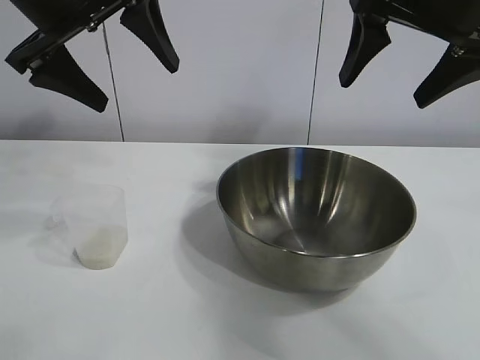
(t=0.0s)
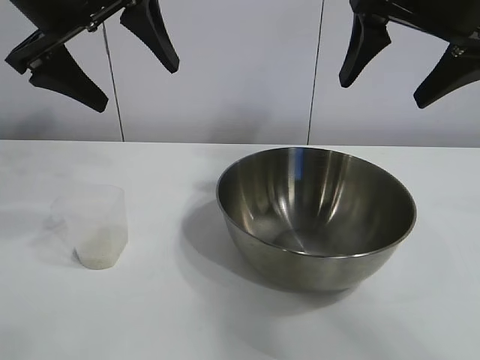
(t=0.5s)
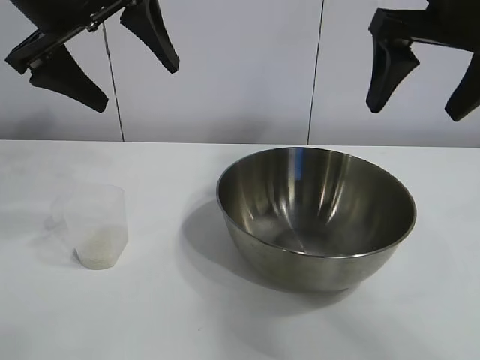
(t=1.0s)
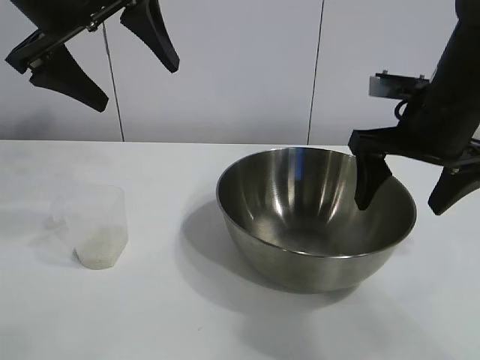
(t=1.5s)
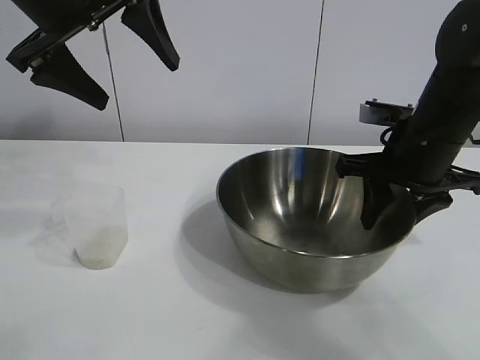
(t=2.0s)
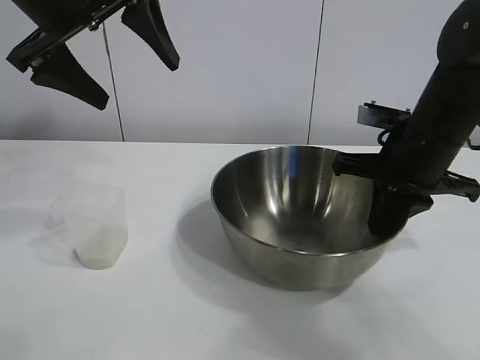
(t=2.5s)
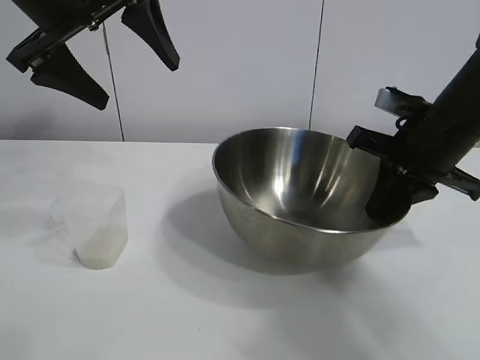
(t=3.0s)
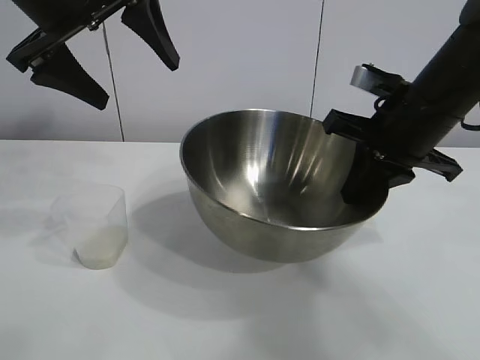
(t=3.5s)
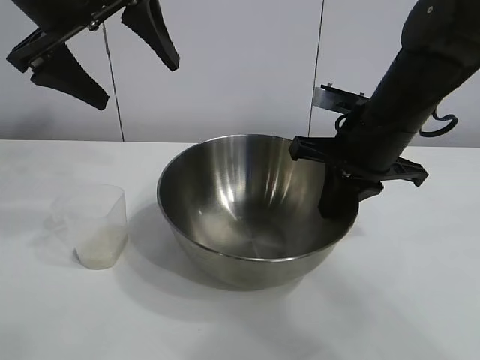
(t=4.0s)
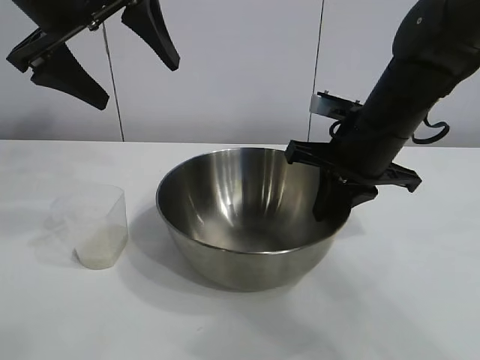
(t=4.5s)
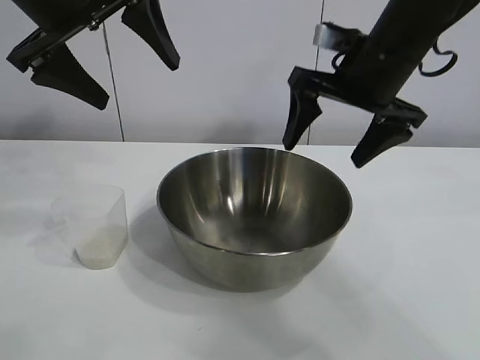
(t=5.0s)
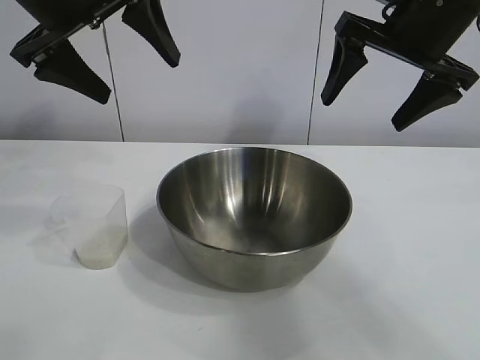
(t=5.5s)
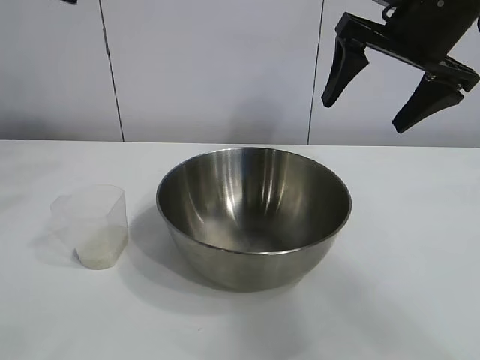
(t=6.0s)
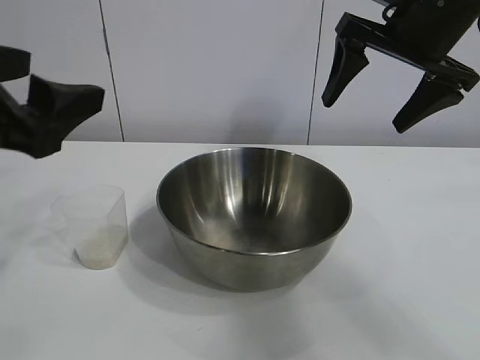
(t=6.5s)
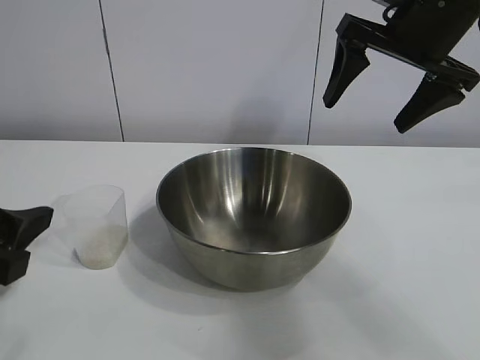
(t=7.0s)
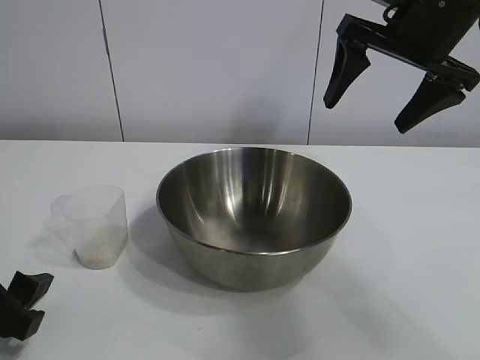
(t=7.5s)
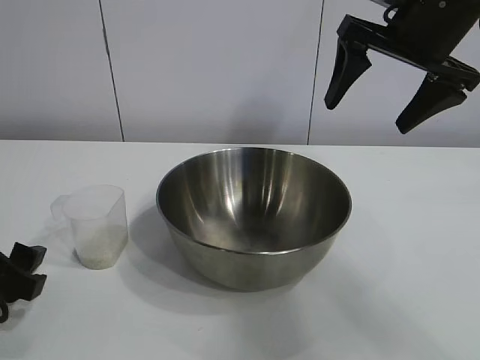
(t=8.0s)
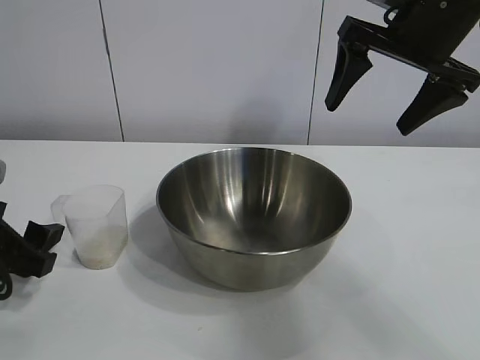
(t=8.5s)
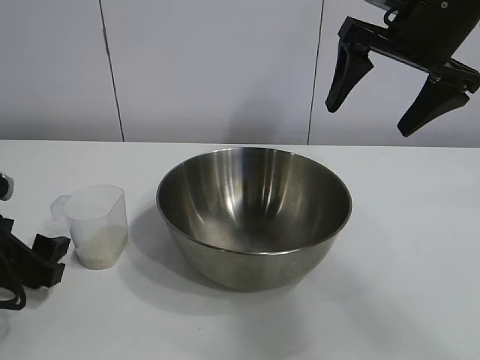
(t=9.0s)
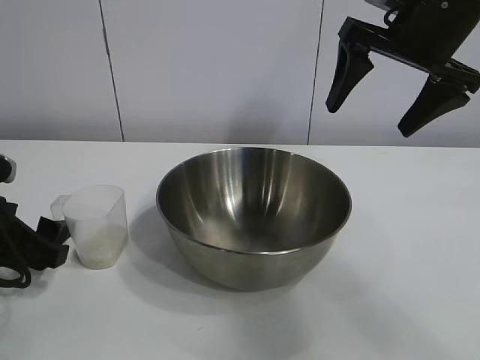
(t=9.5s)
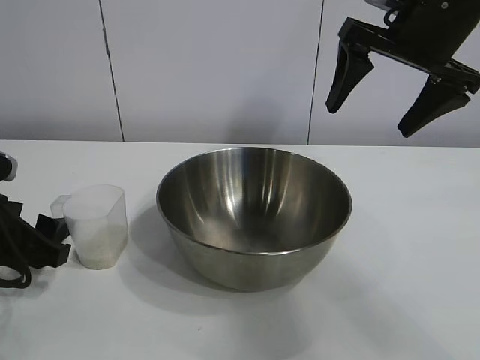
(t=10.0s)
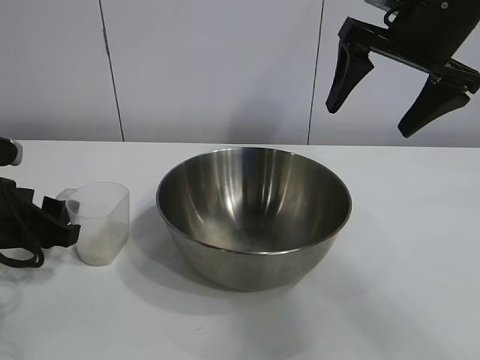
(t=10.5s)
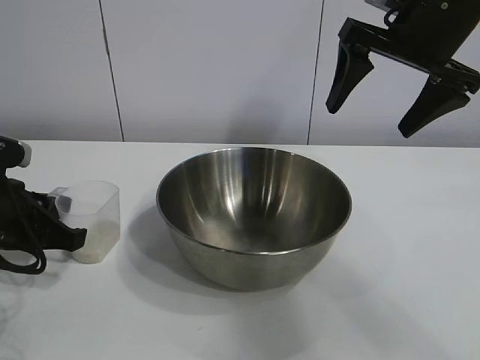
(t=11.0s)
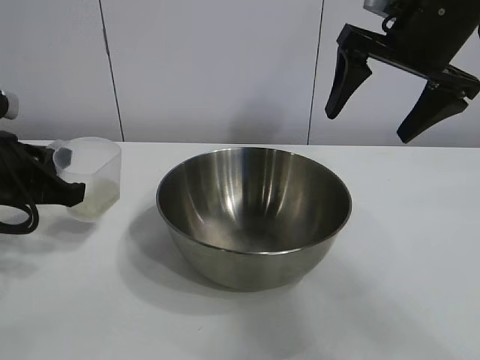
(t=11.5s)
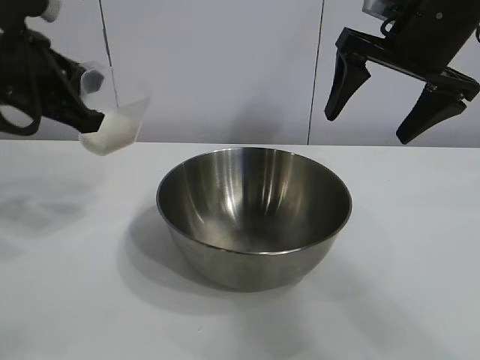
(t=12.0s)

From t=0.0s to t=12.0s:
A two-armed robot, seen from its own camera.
Task of the whole recording: the right gripper grasp the rice container and place it in the center of the table, the left gripper grasp the rice scoop and pour the rice into the rice container.
Step, from t=1.0s to t=4.5s: Move the bowl in the center of view with right gripper.
Step, from t=5.0s to t=11.0s: Grasp the cup with rice in it with left gripper.

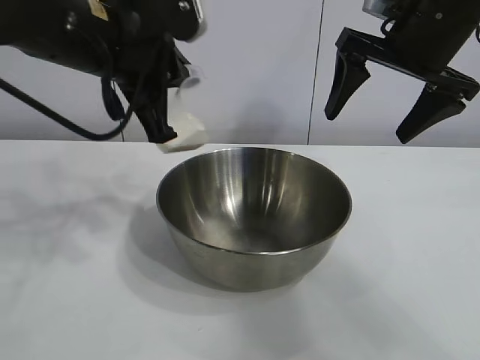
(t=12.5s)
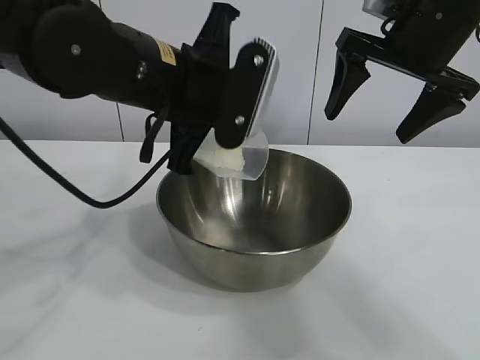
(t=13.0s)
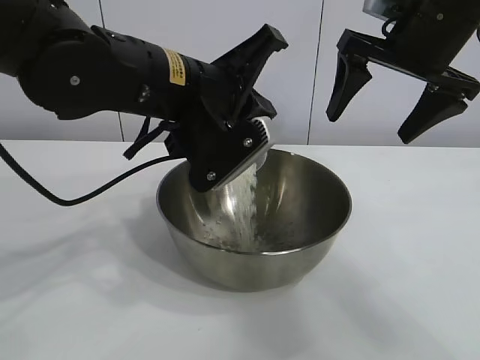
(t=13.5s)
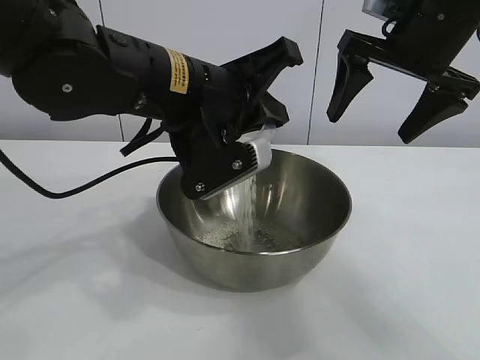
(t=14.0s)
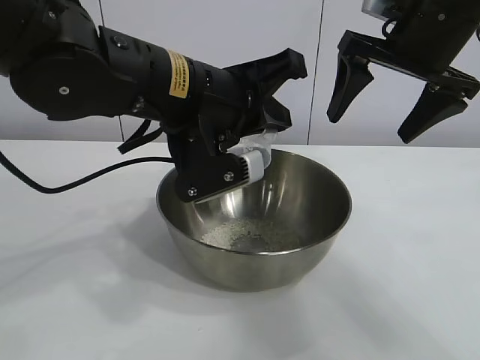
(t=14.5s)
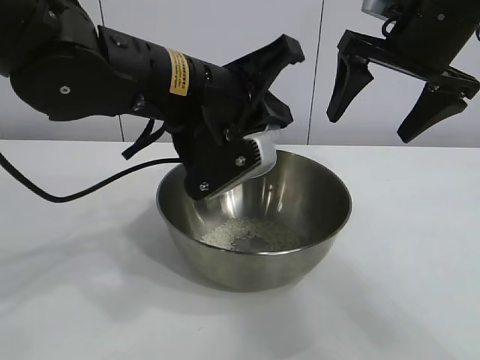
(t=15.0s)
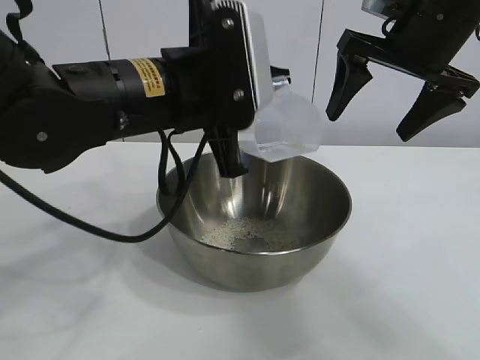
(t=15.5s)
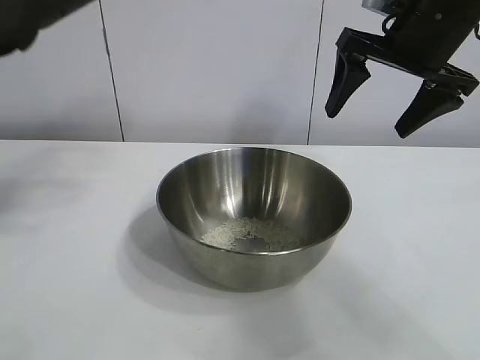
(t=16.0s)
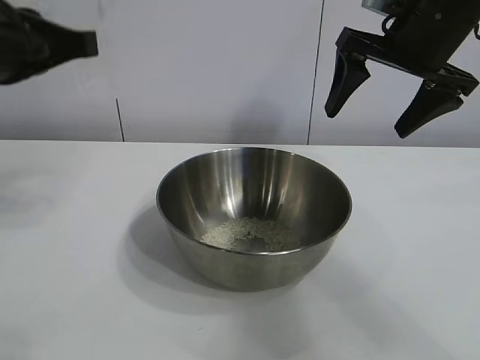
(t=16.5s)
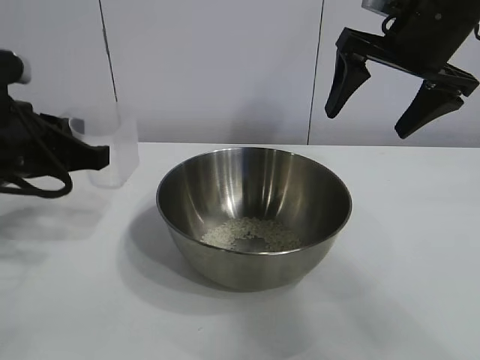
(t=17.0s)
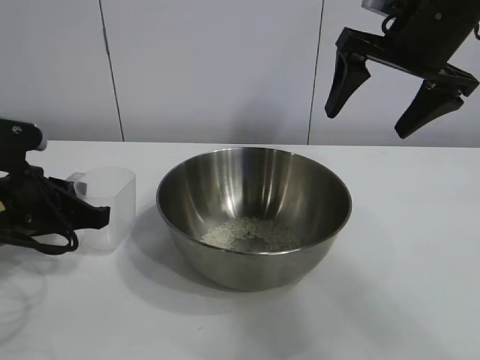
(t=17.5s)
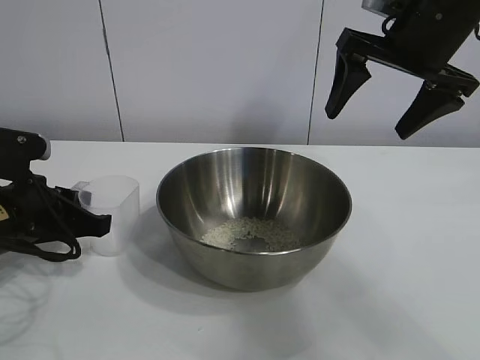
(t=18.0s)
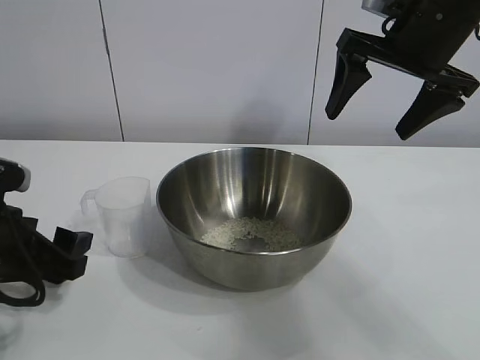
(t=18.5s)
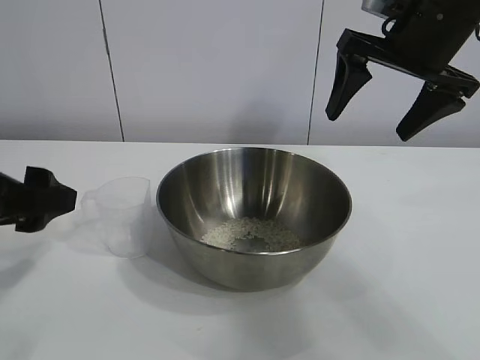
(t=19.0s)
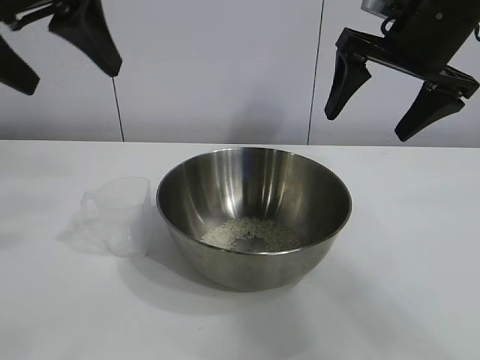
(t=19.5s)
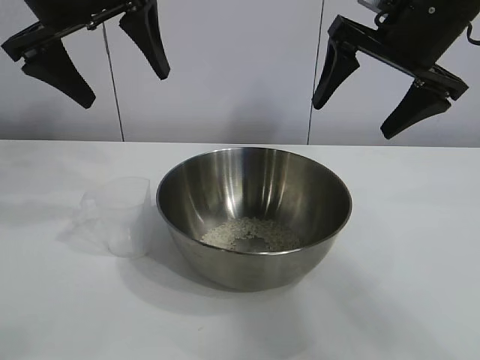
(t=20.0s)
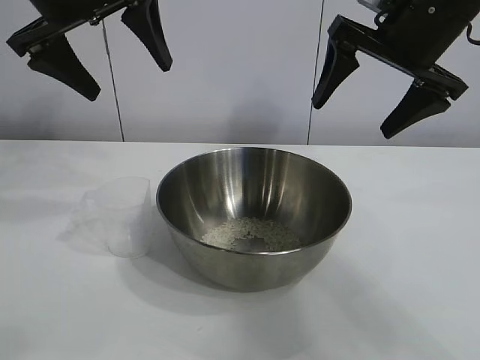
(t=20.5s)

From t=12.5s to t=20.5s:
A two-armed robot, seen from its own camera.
Task of the whole recording: the right gripper grasp the rice container and place it in the center of the table, the left gripper grasp the rice scoop and pour the rice into the rice container.
Step, from t=12.5s to t=14.5s: Pour the rice from the cup into the bowl with the left gripper.
Step, from t=15.0s to t=18.0s: Place the cup on the table with the left gripper.
